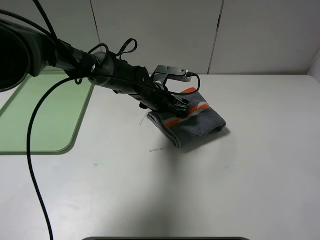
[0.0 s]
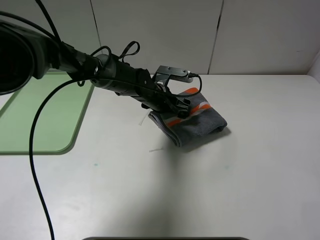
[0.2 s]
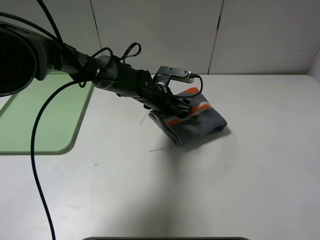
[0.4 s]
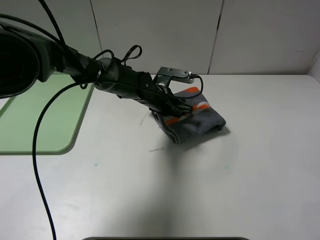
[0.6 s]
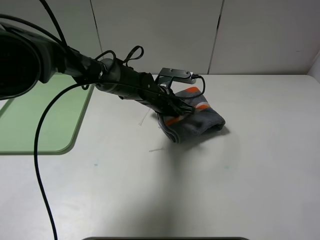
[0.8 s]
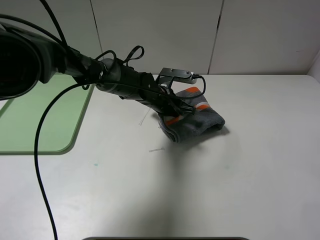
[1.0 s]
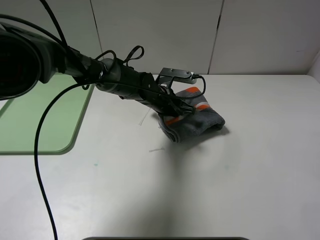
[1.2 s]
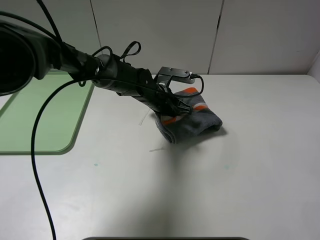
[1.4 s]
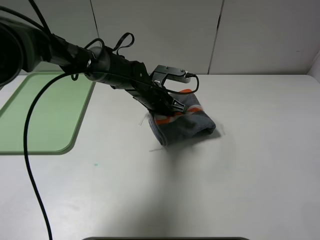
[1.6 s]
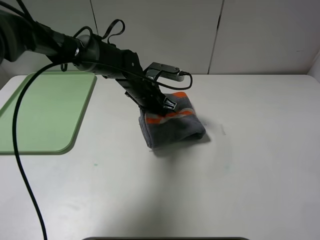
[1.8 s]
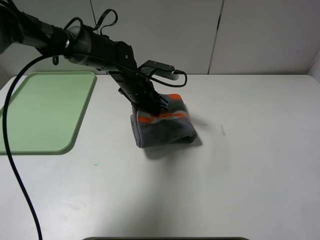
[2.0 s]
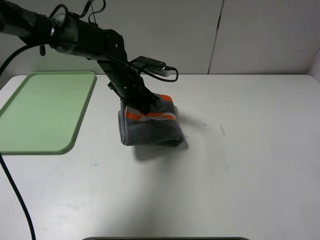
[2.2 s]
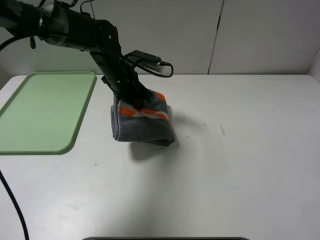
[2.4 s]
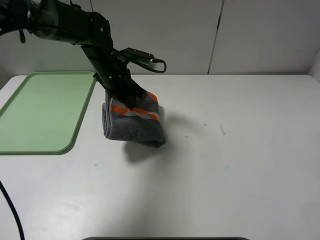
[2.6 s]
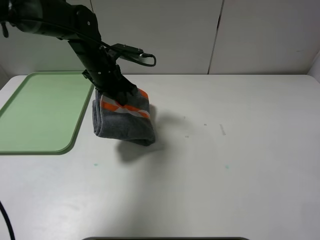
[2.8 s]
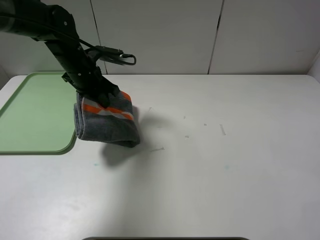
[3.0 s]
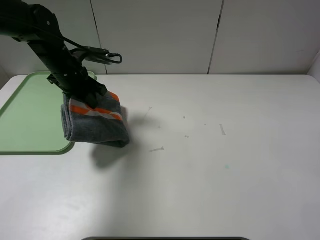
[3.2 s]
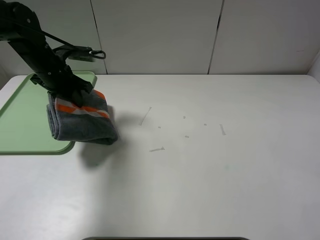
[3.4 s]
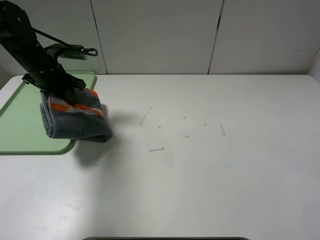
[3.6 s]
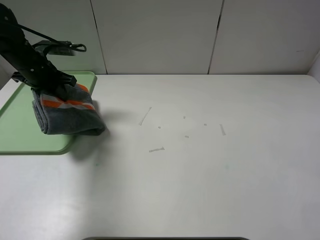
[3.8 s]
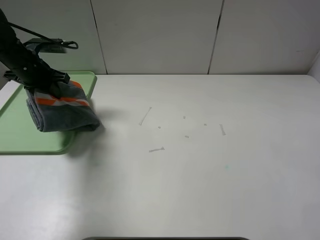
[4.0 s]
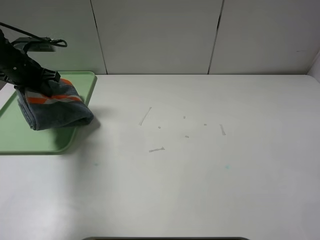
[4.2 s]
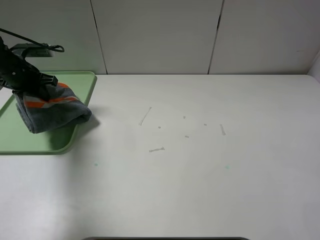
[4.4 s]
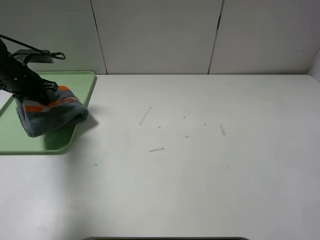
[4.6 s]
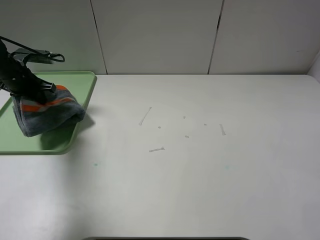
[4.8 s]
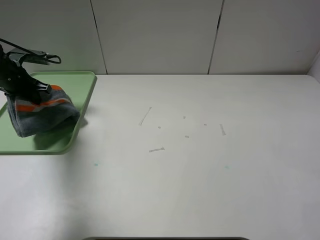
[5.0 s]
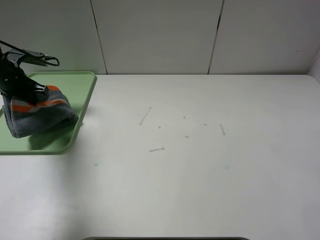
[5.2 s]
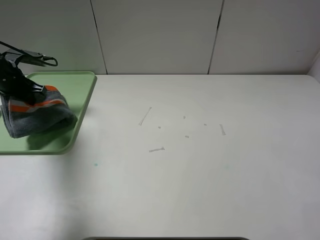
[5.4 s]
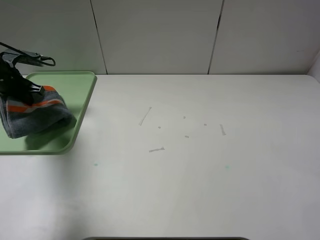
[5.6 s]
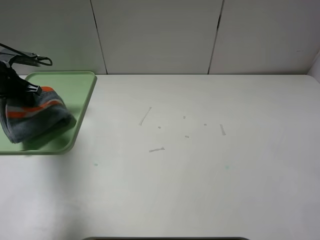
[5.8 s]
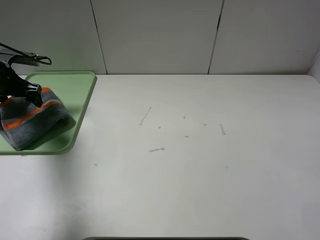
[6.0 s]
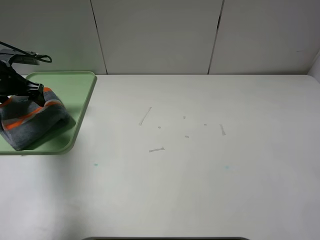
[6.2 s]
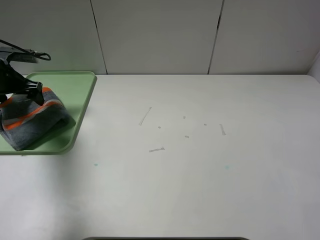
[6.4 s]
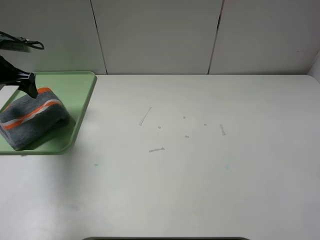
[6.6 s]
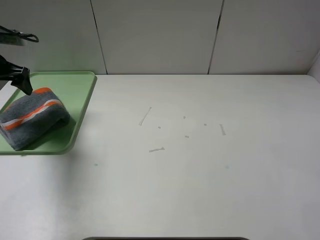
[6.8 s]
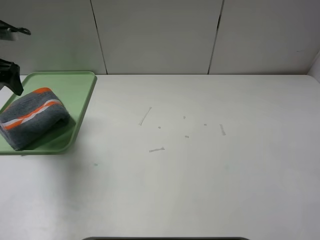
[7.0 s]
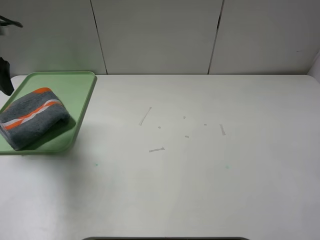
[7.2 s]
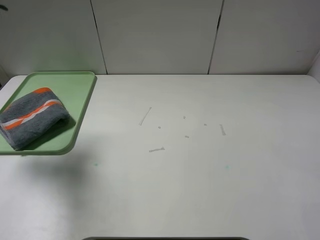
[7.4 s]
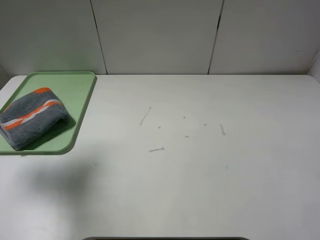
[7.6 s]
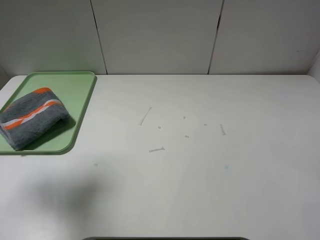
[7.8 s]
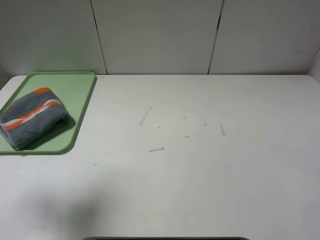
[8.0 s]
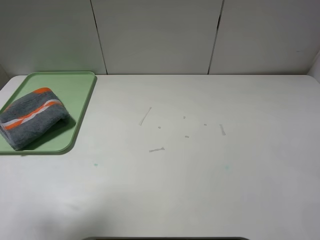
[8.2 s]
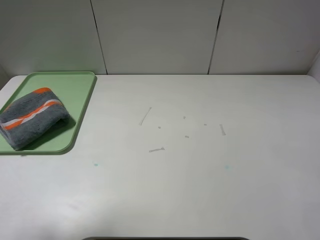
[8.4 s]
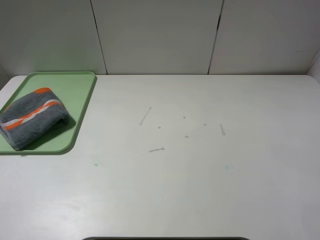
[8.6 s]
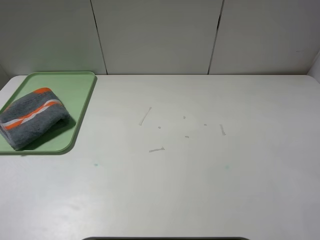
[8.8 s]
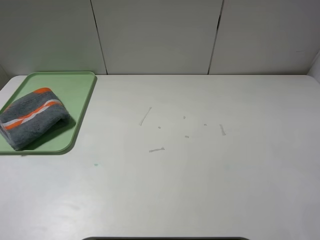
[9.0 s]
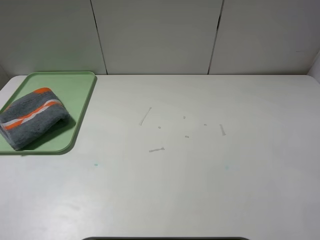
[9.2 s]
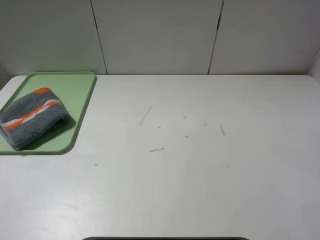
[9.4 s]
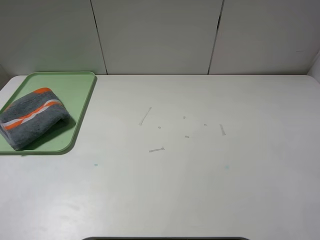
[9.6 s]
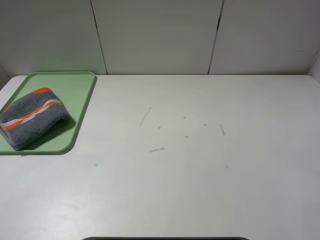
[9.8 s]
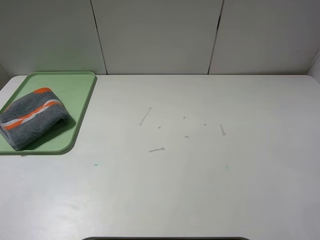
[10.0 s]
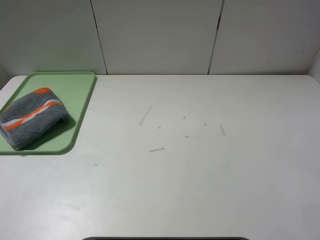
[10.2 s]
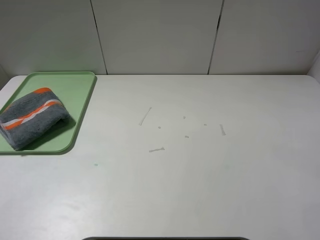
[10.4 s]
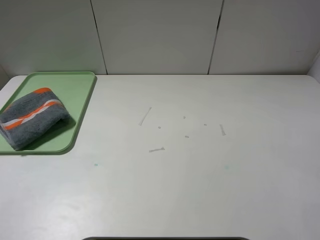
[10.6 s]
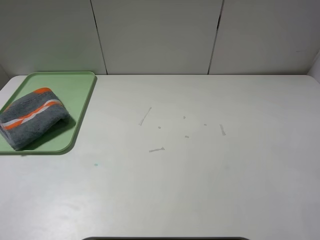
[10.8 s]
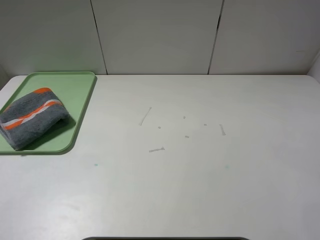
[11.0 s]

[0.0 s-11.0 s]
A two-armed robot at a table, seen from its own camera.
Step, 0.0 to 6.6 s: Place the folded grey towel on the tray with the left gripper.
0.0 to 1.6 s: The left gripper closes its fingers.
1.6 to 3.2 s: The left gripper travels to the left and upward by roughly 20 cm.
3.2 to 4.8 s: The left gripper is displaced to the left by some 15 cm.
4.8 to 6.2 s: The left gripper opens its fingers.
6.2 to 7.8 s: The left gripper goes approximately 25 cm upward and backward.
7.8 to 9.4 s: The left gripper moves backward and downward, about 25 cm.
9.4 to 11.0 s: The two grippers keep their place.
